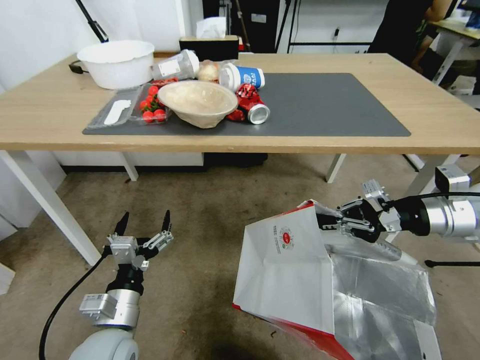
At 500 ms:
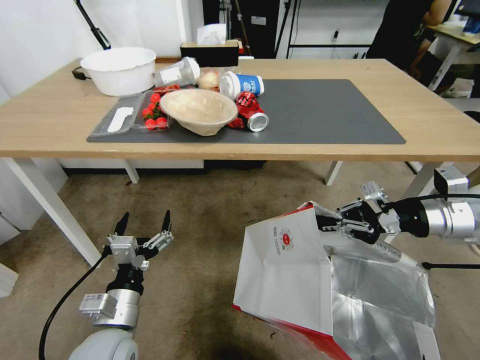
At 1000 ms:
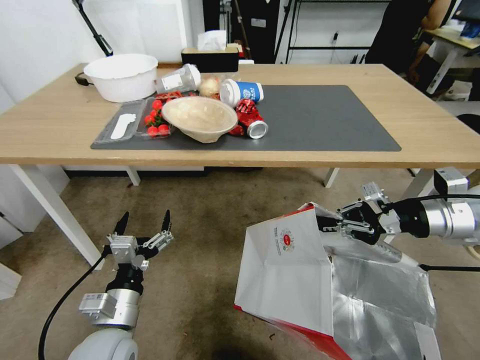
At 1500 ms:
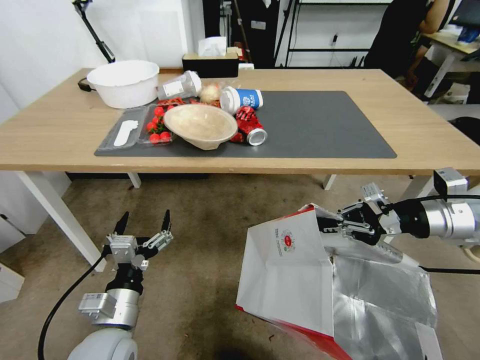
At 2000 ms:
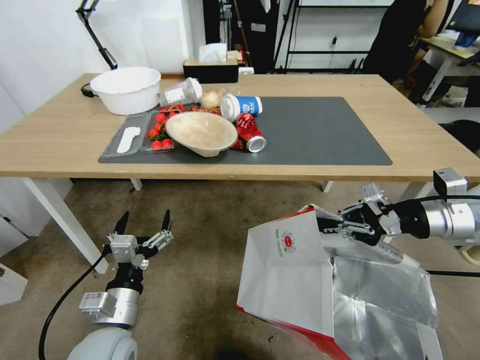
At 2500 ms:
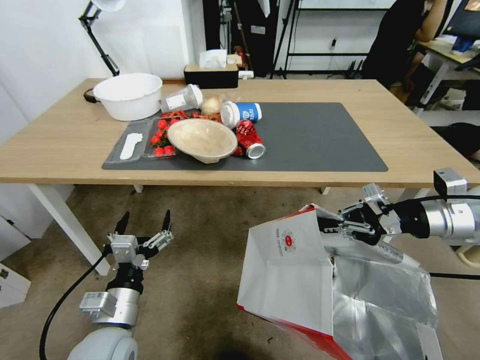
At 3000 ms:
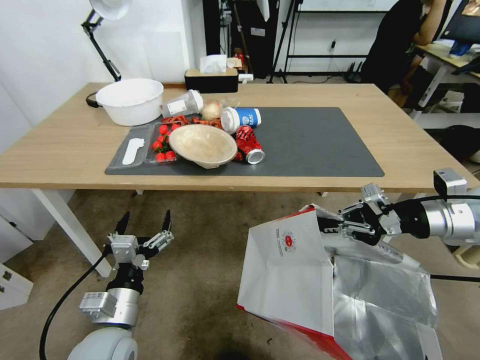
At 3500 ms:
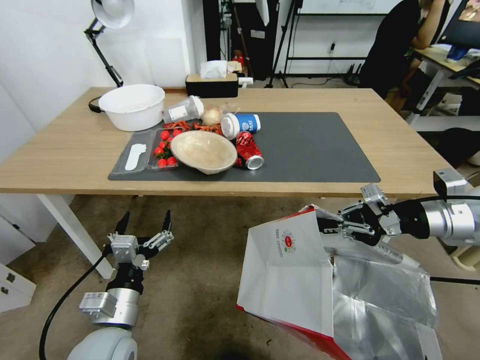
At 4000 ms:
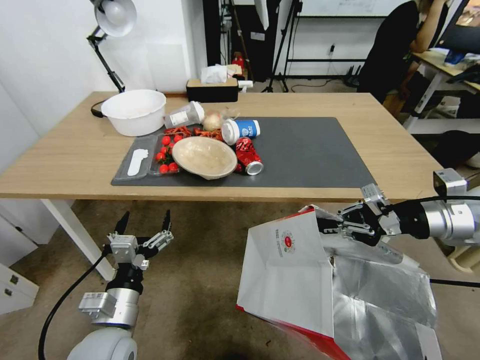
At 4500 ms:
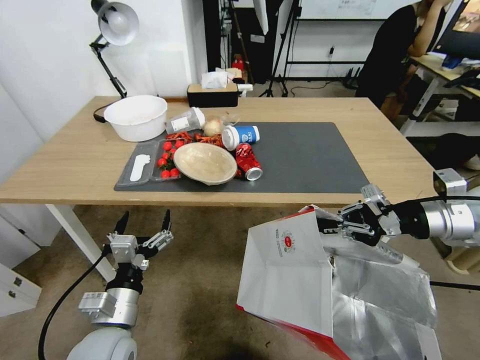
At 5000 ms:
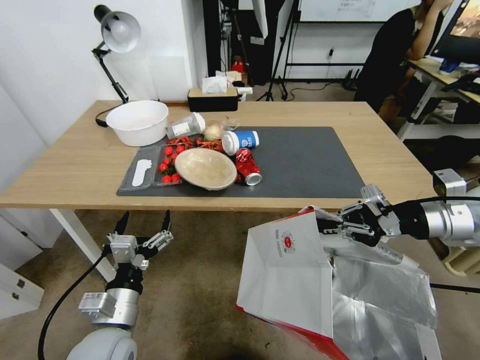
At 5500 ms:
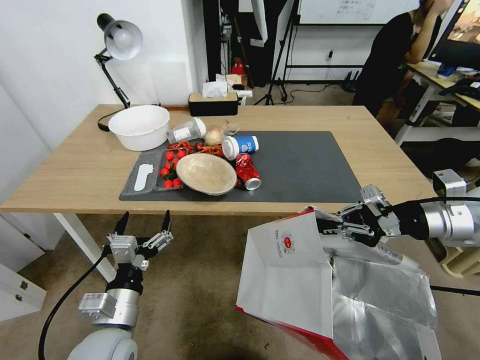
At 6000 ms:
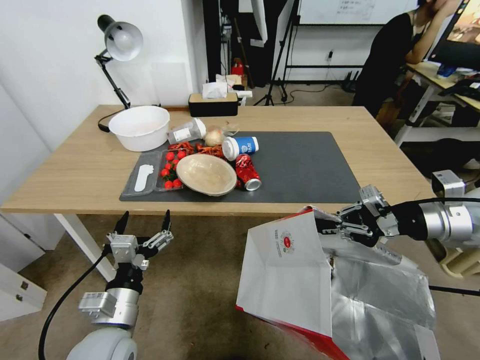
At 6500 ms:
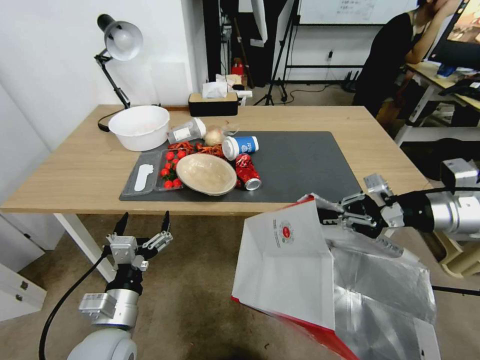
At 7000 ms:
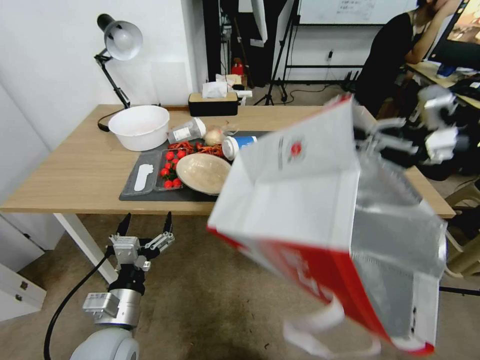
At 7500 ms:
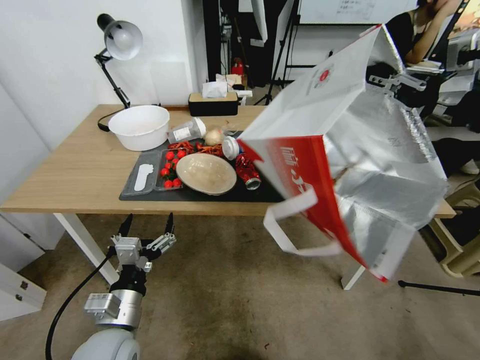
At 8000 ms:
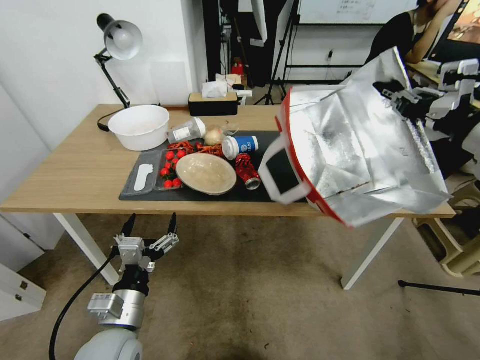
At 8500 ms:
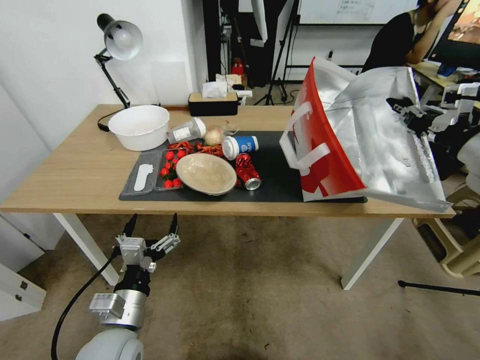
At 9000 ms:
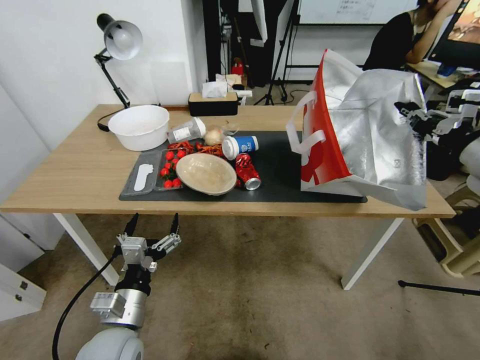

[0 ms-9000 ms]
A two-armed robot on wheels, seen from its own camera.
Task of the whole recording: Pick up the food delivery bag from the floor and place it on the table.
4500 ms to 7000 ms: The right gripper heads upward, covering some 10 cm.
7000 ms to 9000 ms: The right gripper heads downward, covering some 5 cm.

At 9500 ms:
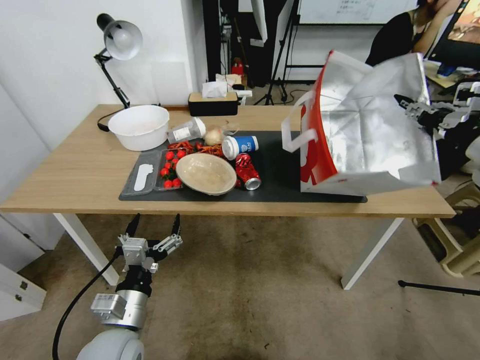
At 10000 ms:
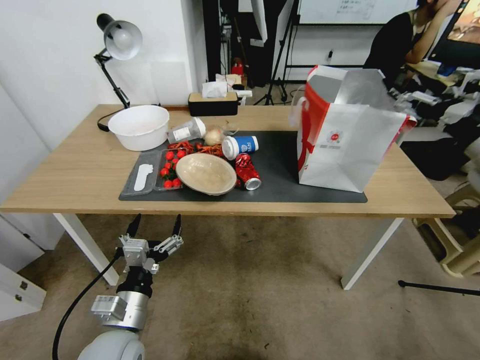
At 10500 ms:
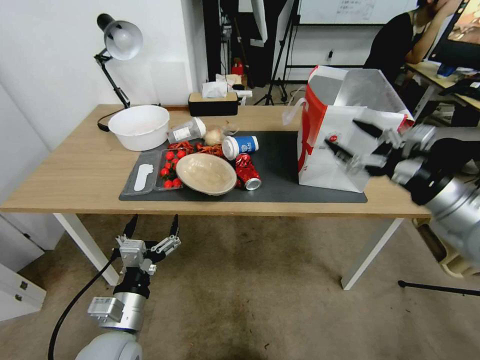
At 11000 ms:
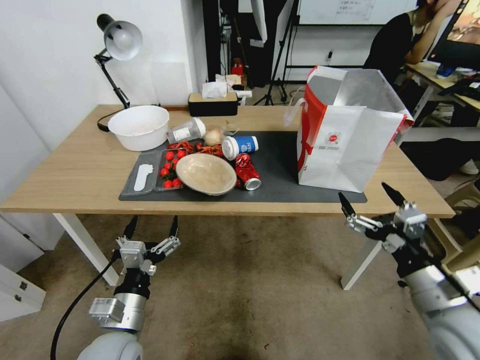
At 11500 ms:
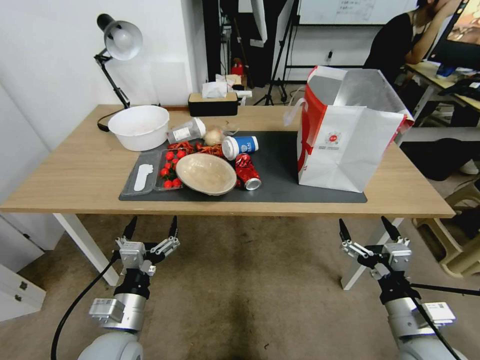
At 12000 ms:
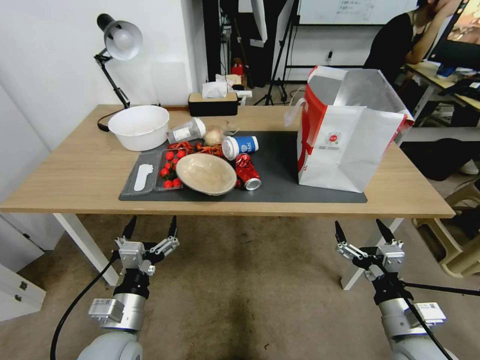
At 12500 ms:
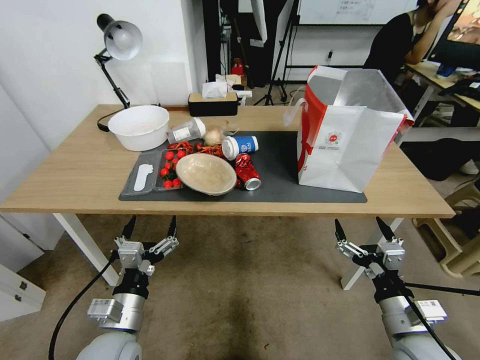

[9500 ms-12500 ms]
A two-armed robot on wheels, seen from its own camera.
Task of the whole recording: Pick up the food delivery bag from the floor and place it on the table.
9500 ms to 11000 ms: The right gripper is displaced downward, backward and to the left by some 25 cm, and opens up.
11000 ms to 12500 ms: The right gripper moves downward, roughly 10 cm.
